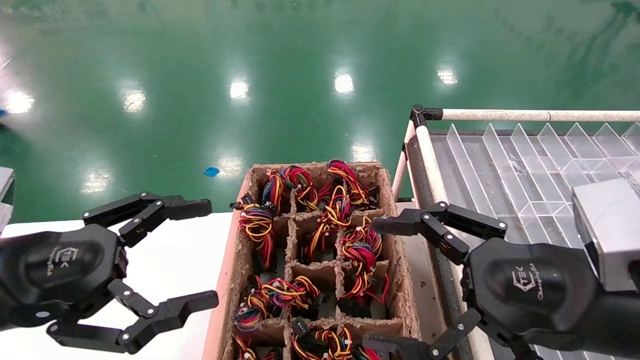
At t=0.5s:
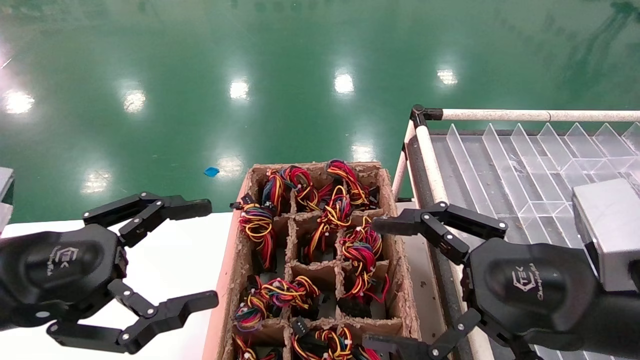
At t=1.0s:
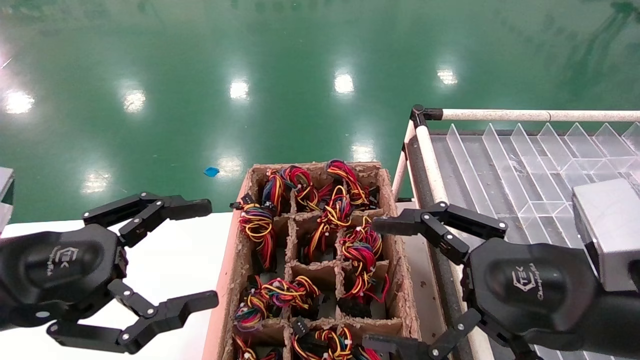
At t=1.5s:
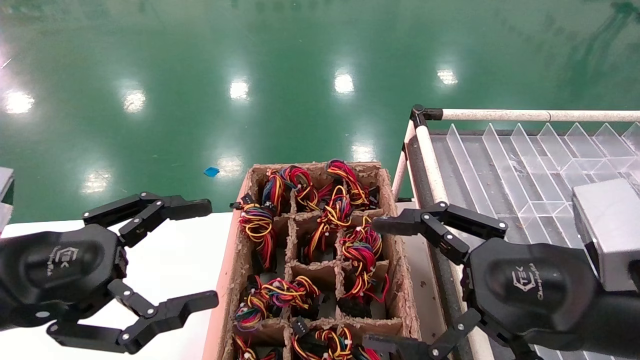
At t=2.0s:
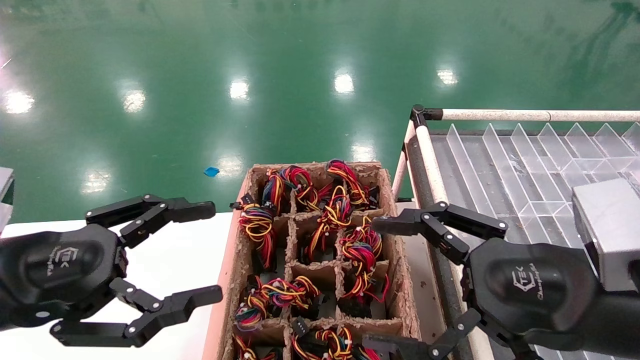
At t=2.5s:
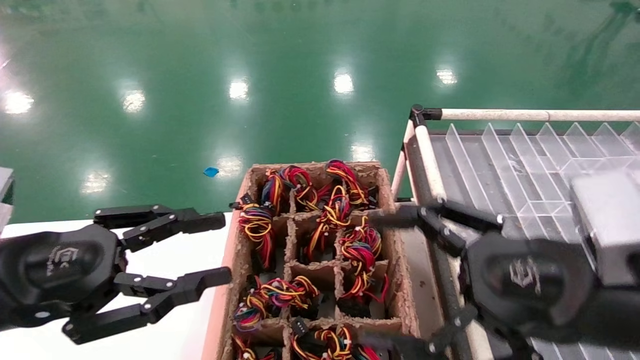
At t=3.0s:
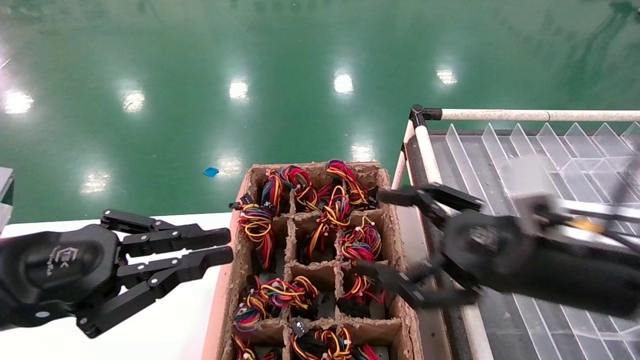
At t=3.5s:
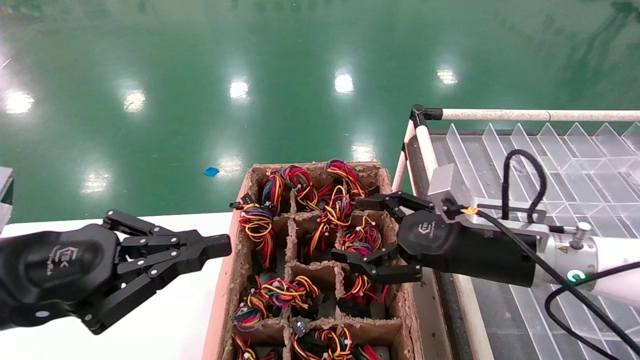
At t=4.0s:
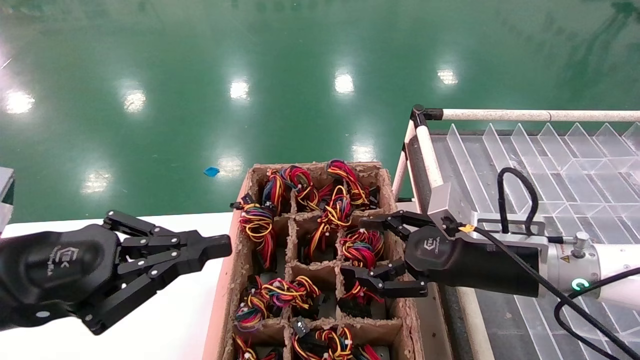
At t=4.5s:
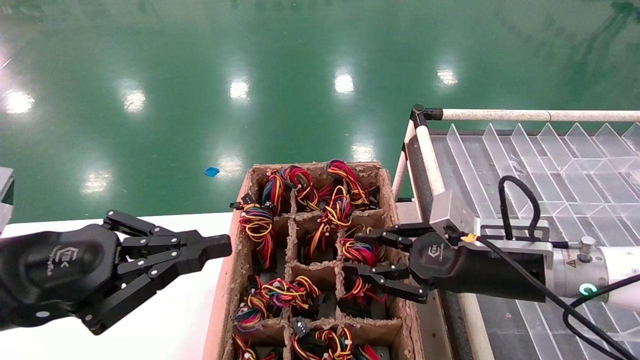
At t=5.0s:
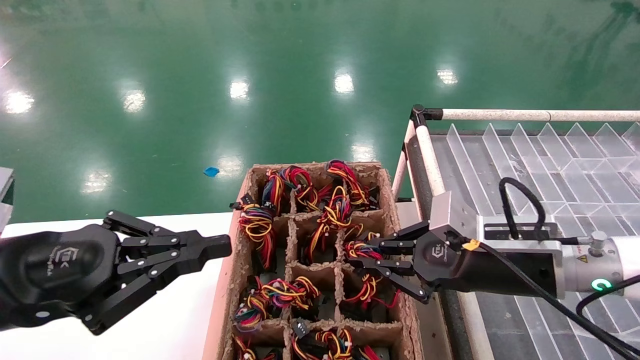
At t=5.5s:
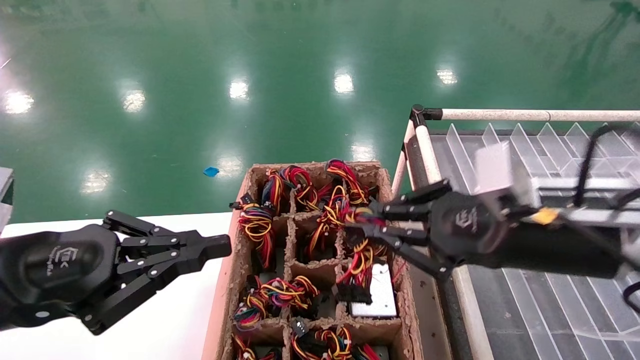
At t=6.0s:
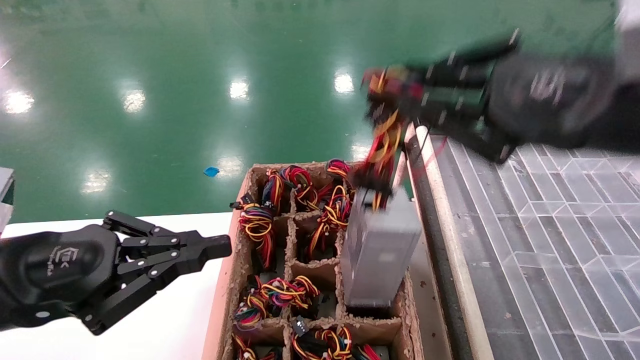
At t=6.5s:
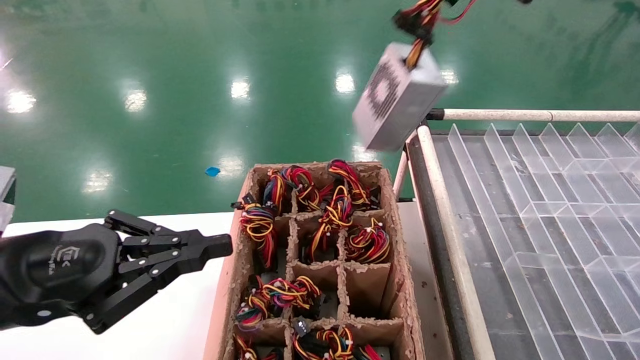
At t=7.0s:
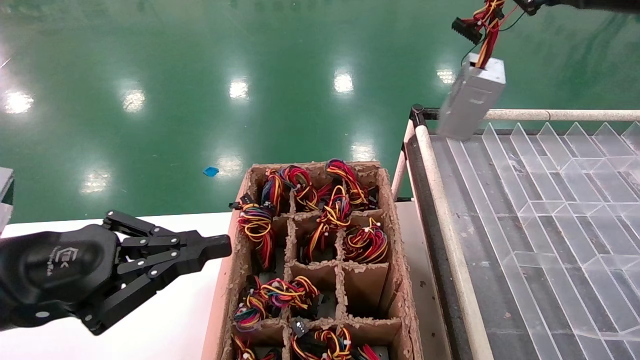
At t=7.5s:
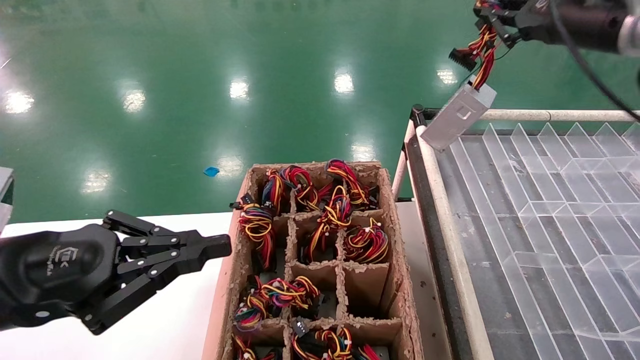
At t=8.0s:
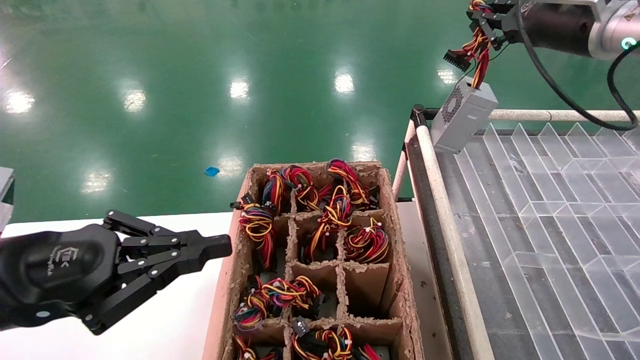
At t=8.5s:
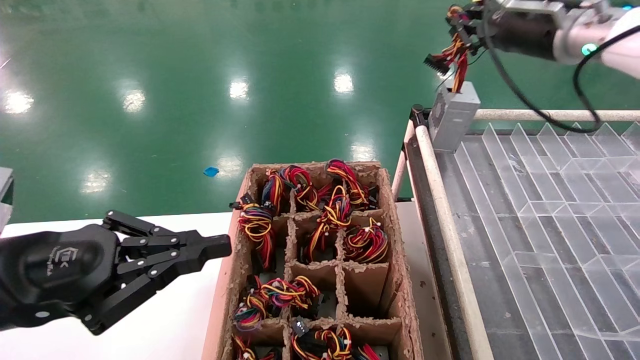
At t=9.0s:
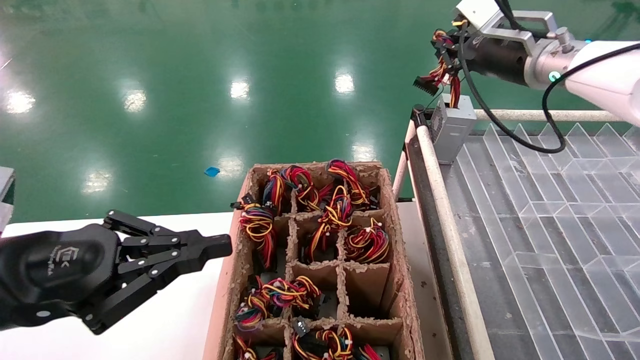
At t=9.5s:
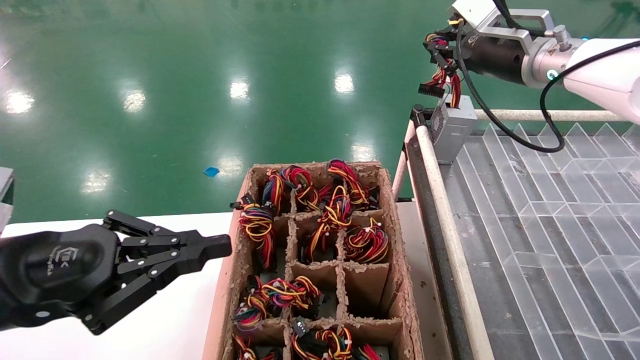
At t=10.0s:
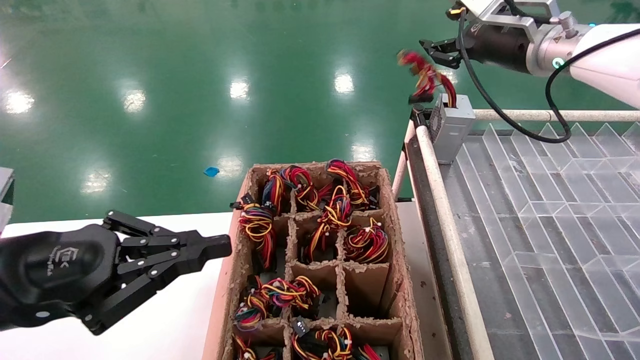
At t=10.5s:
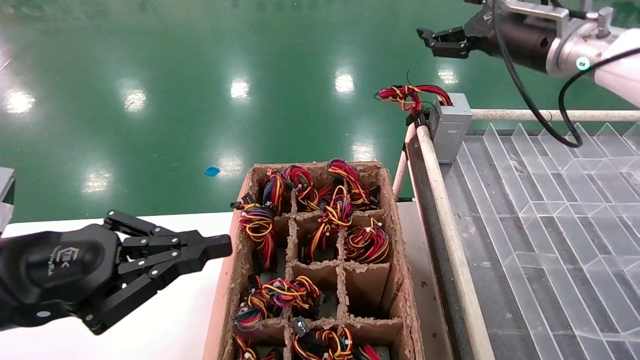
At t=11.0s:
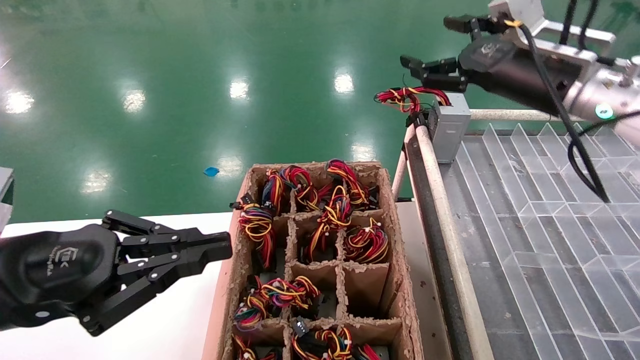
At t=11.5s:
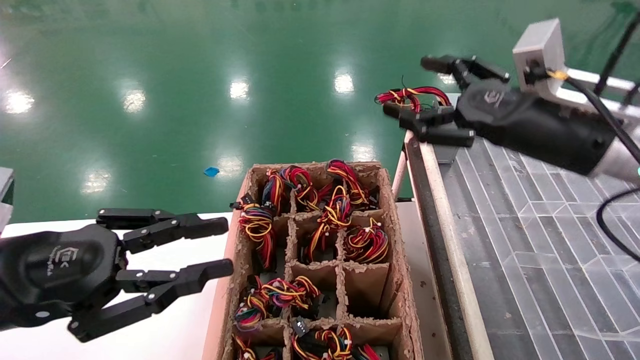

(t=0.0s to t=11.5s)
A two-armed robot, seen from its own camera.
Step, t=3.0s - t=5.0s: Grab the main unit power supply from the containment box.
Step, t=5.5s - t=10.0s: Place the main unit power supply in the designated area.
t=0.0s - t=2.0s: Neither gripper changes place.
t=2.0s - t=4.0s: The right gripper heads forward and downward, covering about 15 cm, while the left gripper closes up.
t=4.0s - t=6.0s: The right gripper heads upward and backward, covering some 20 cm, and closes up.
t=6.0s - t=7.5s: The right gripper shifts about 20 cm forward, to the right and upward.
t=7.5s - t=9.5s: The right gripper travels to the left and forward by roughly 10 cm.
t=9.5s - t=11.5s: The right gripper is displaced backward and downward by about 15 cm, and opens.

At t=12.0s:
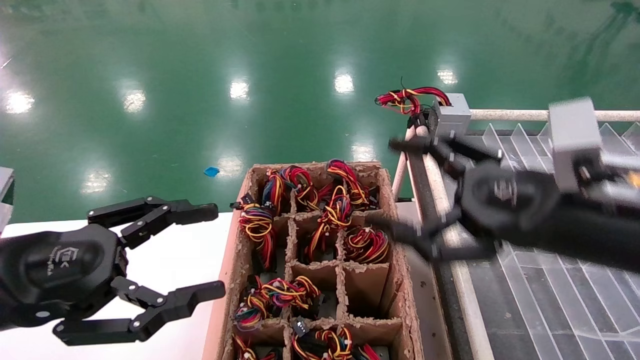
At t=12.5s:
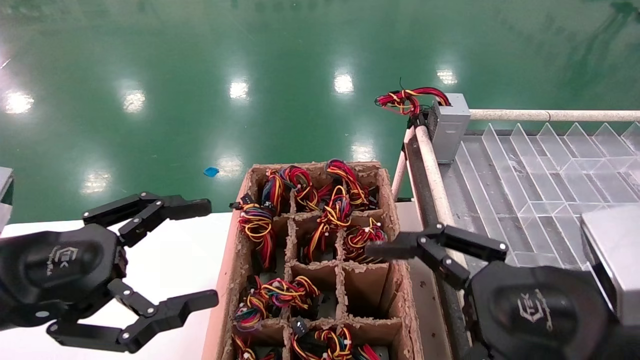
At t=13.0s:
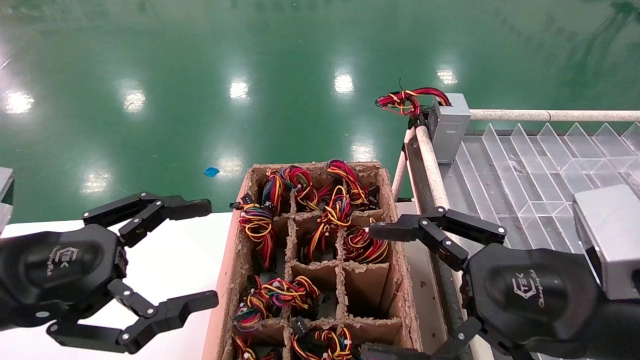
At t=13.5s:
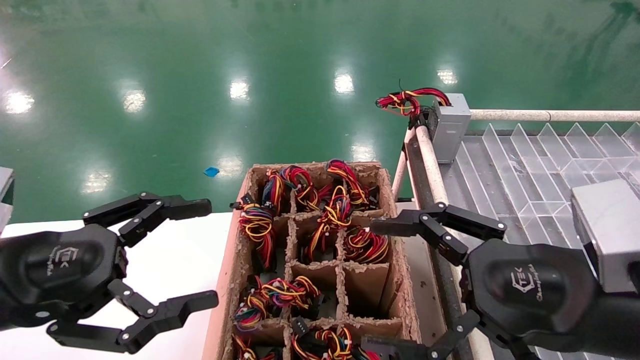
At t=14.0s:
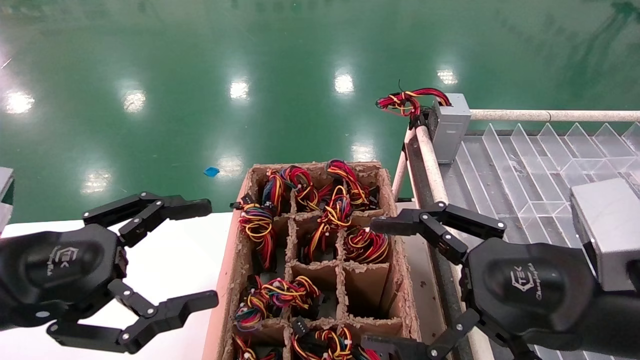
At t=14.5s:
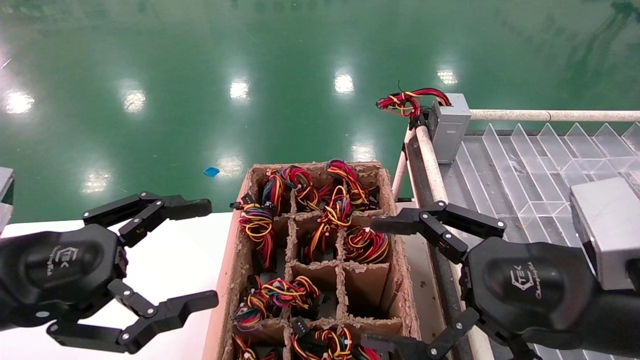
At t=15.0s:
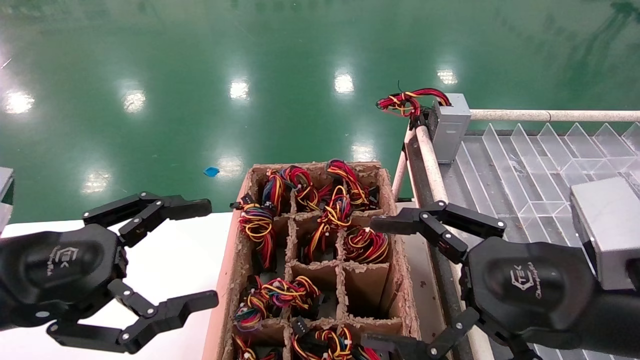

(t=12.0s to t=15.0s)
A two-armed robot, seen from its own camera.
t=12.0s - t=13.5s: The right gripper changes place by approximately 5 cm.
t=13.5s - t=15.0s: Both grippers stay about where they are.
